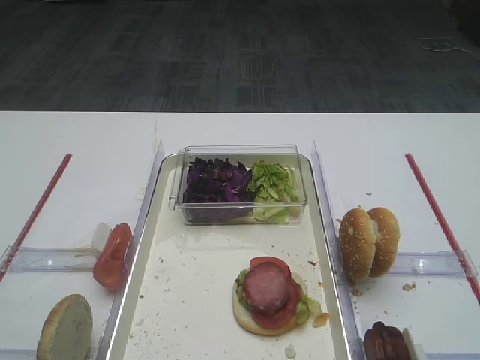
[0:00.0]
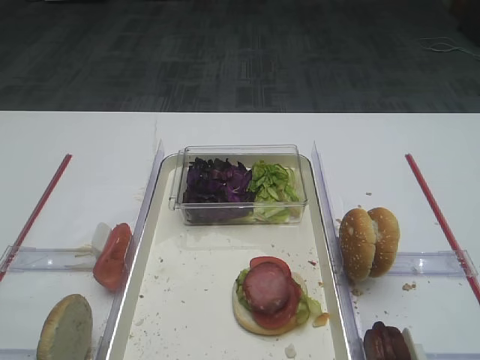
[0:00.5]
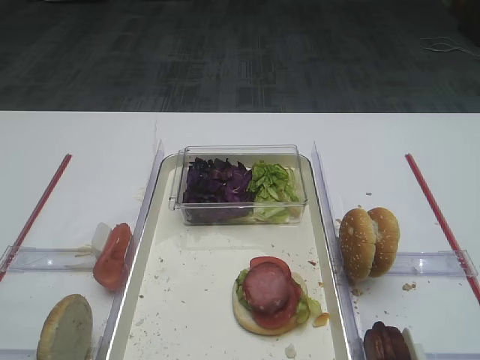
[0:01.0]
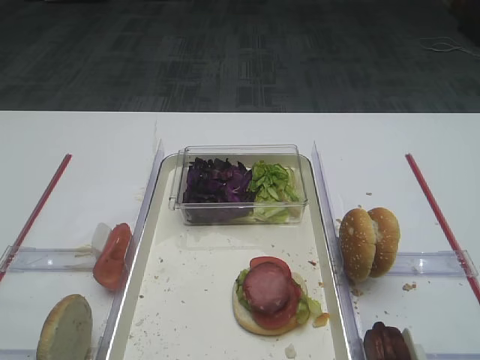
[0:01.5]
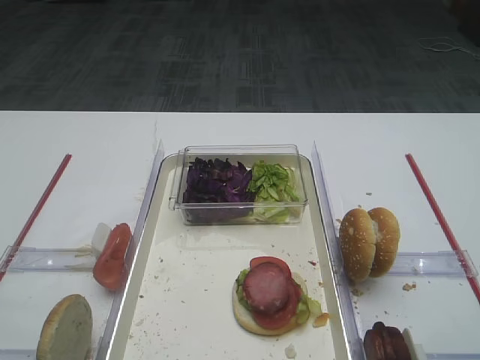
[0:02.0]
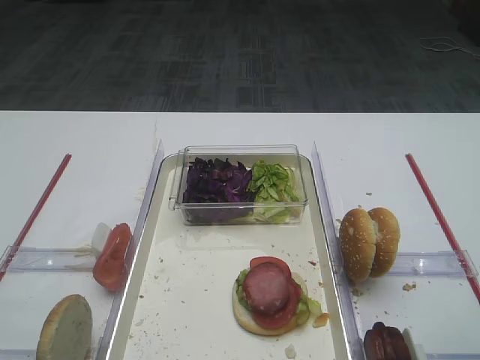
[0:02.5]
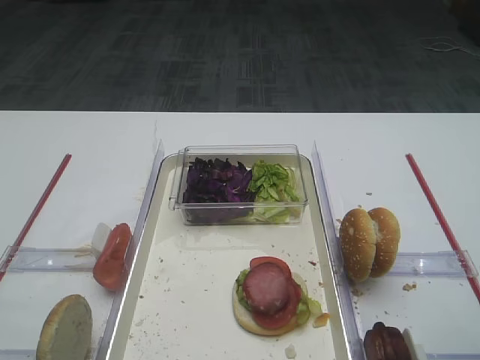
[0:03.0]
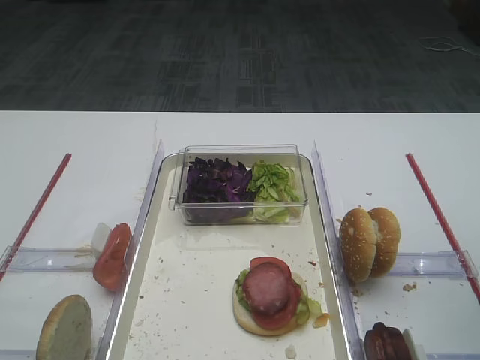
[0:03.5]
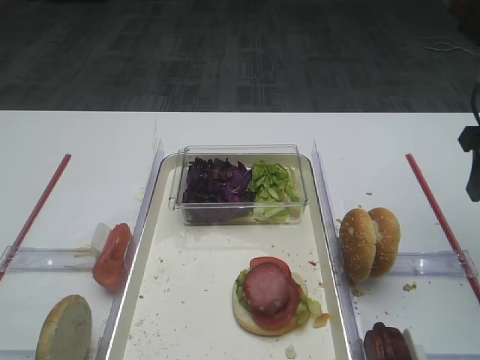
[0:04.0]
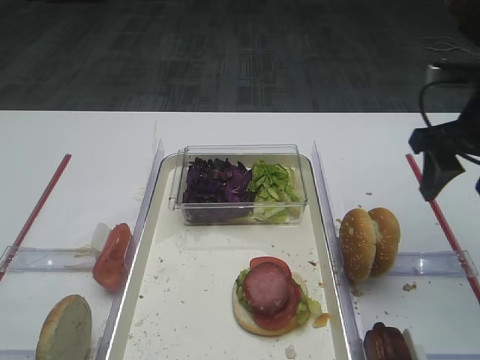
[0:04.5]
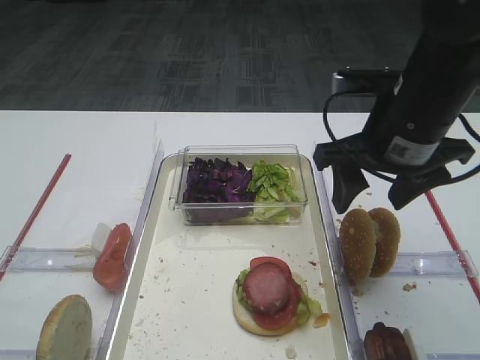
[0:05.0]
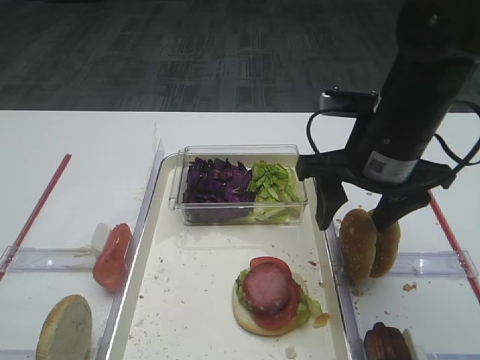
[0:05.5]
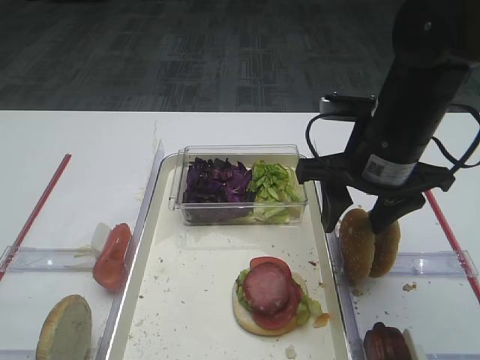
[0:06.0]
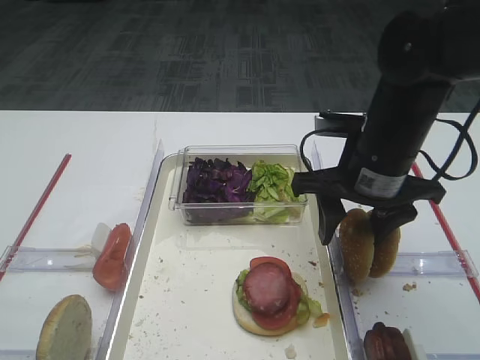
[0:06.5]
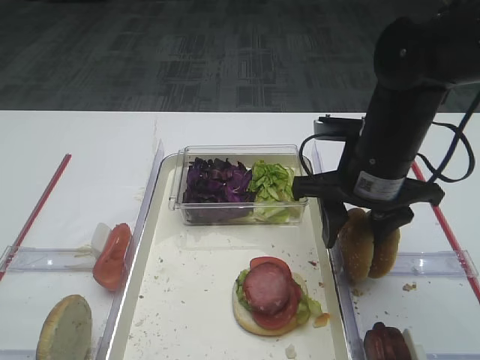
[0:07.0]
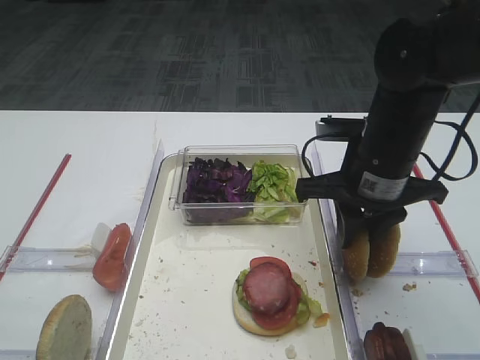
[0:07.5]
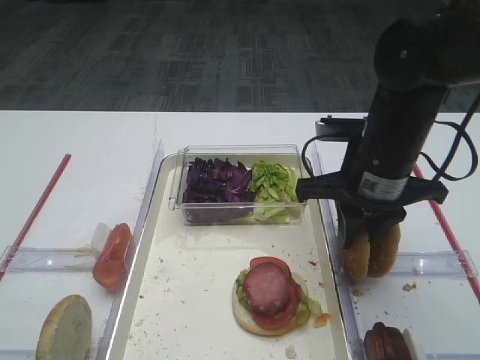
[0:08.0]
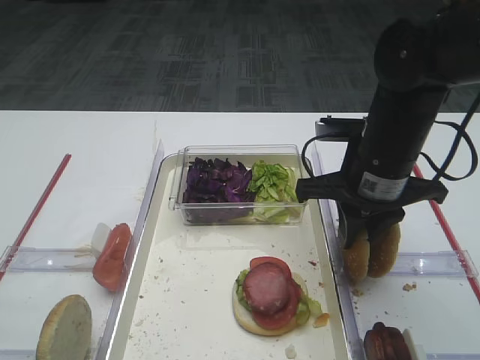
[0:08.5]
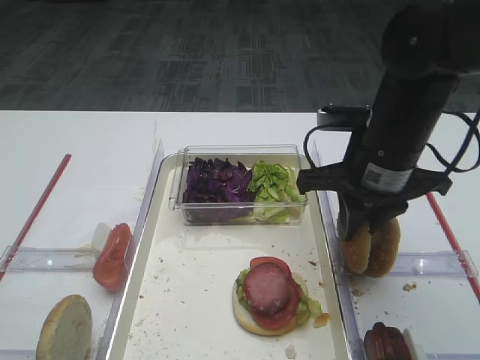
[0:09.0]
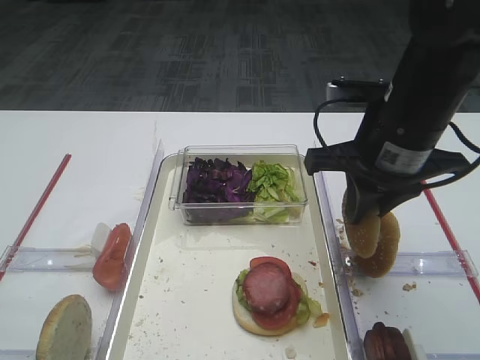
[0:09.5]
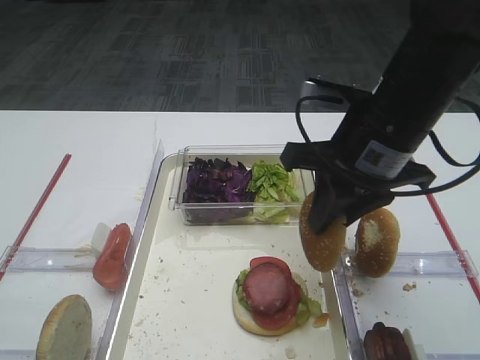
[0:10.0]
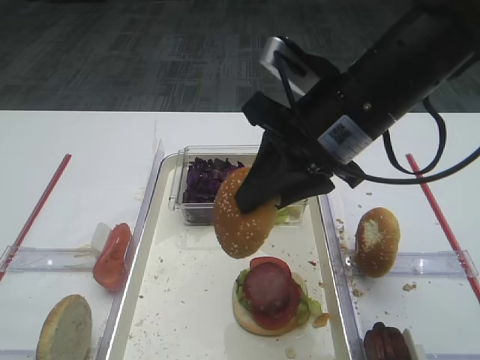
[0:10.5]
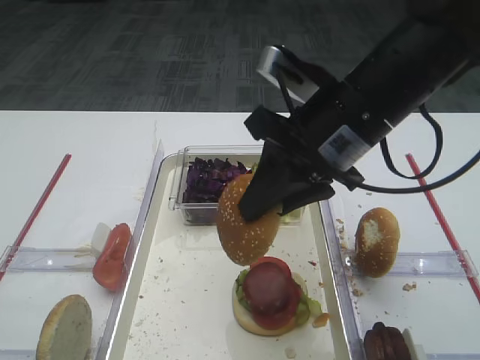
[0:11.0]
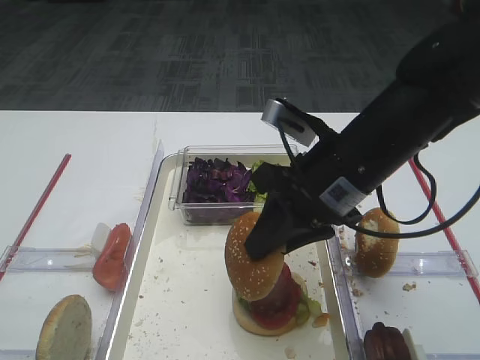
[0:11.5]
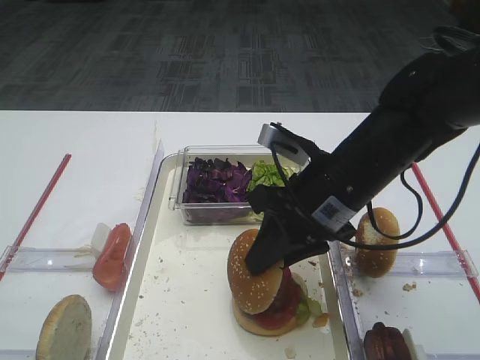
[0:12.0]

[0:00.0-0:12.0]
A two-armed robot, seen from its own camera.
Step, 0:00.0 to 0:09.5: Pick up the hamburger lid with the right gripper.
0:02.0 to 0:04.0: The right gripper goes roughly 20 cm forward.
0:04.0 to 0:06.0: The right gripper moves to the left, roughly 15 cm.
0:06.0 to 0:08.0: The right gripper closes.
0:08.0 to 0:10.0: The right gripper goes approximately 5 cm upward.
0:10.0 to 0:12.0: The right gripper shifts roughly 5 cm downward.

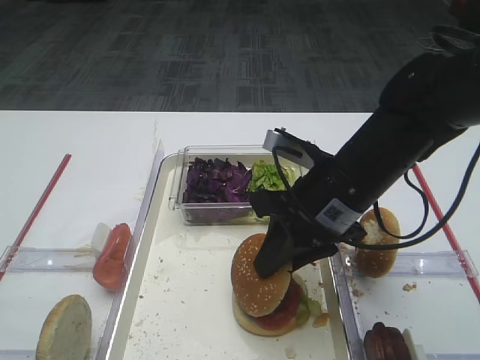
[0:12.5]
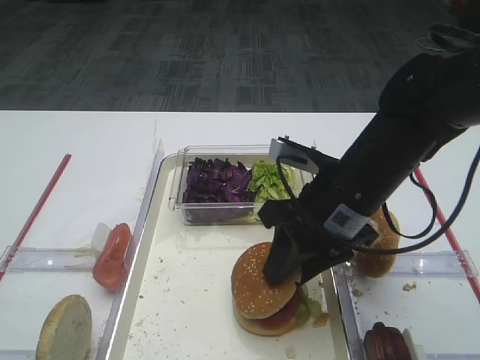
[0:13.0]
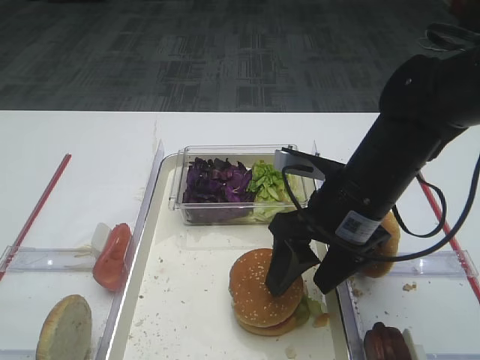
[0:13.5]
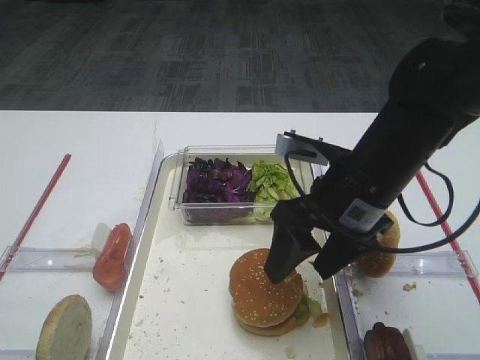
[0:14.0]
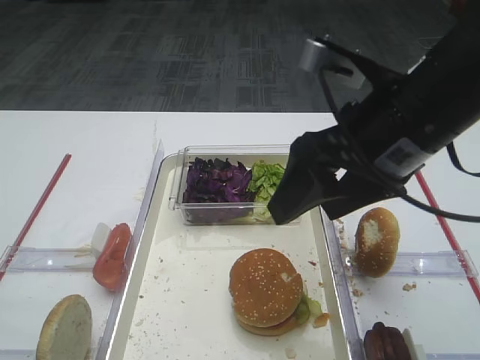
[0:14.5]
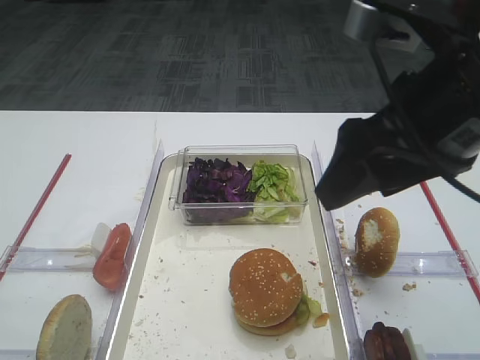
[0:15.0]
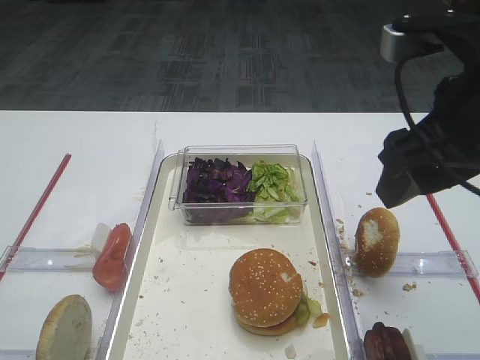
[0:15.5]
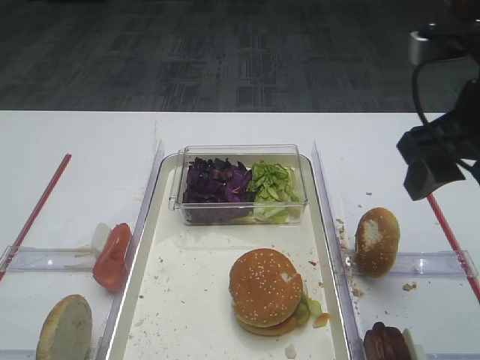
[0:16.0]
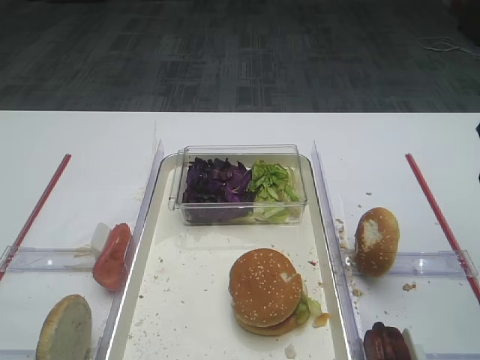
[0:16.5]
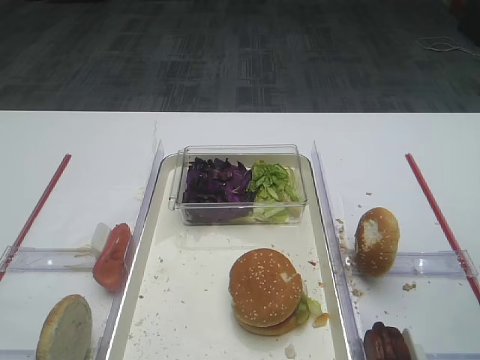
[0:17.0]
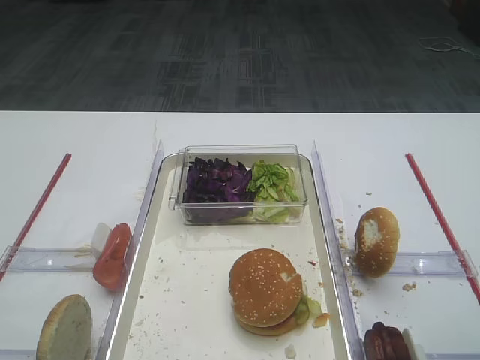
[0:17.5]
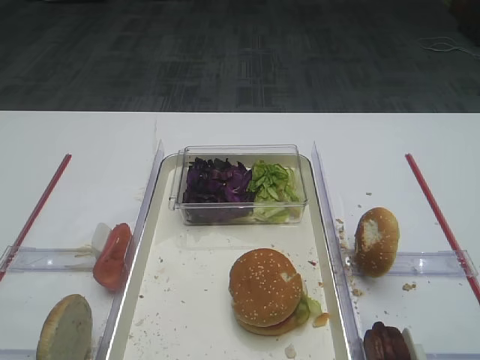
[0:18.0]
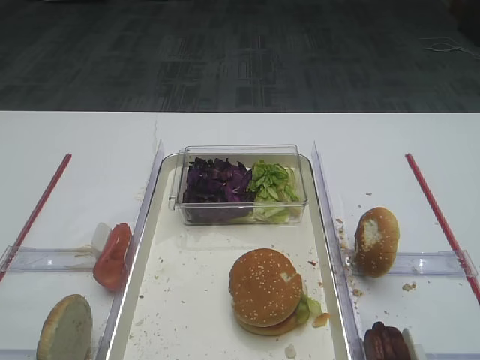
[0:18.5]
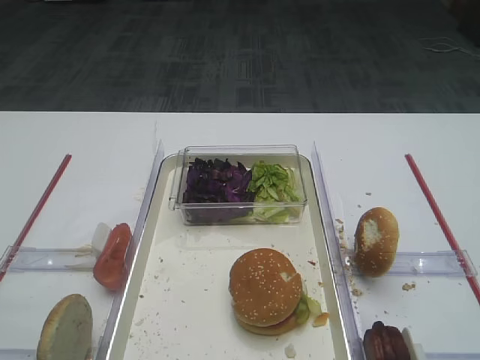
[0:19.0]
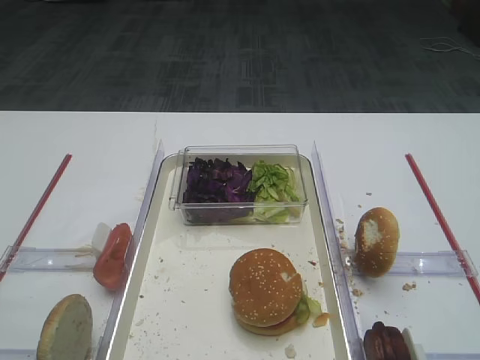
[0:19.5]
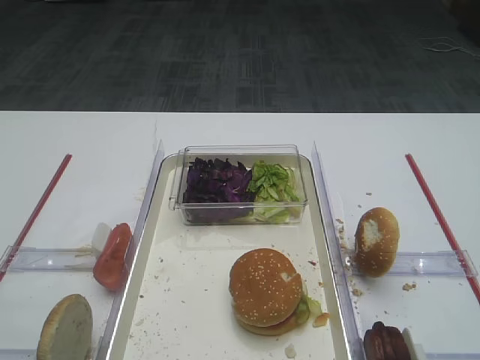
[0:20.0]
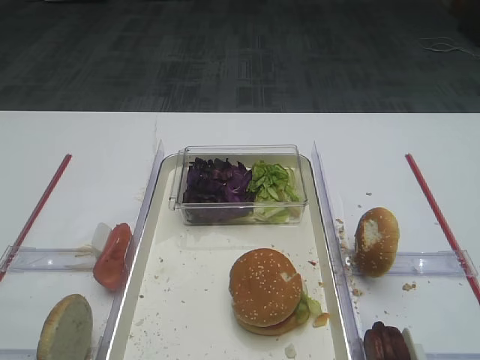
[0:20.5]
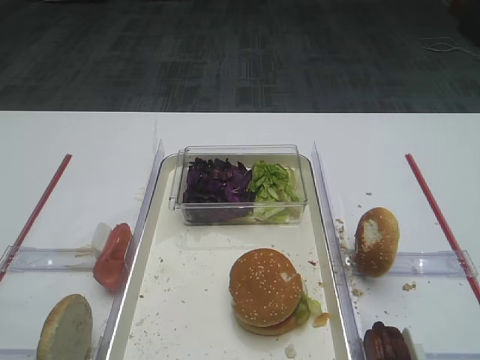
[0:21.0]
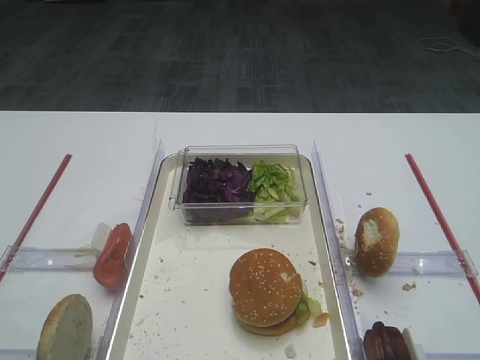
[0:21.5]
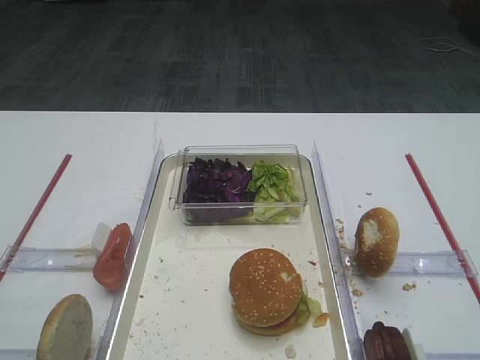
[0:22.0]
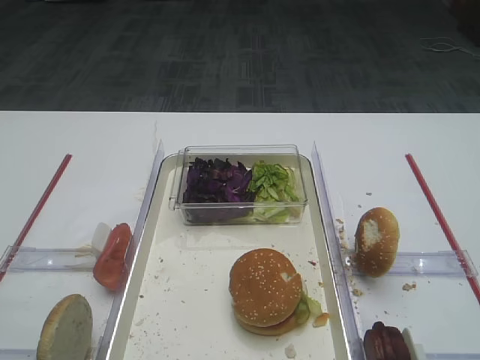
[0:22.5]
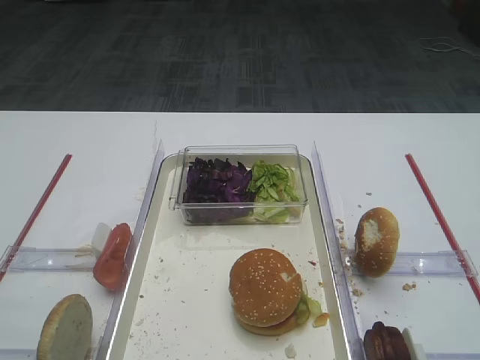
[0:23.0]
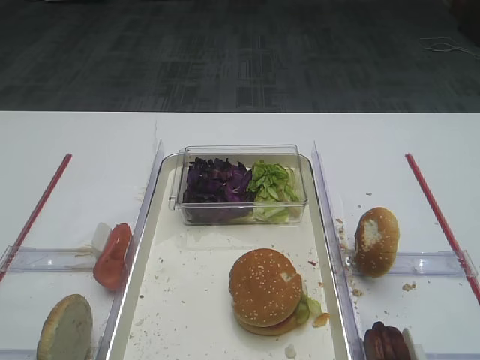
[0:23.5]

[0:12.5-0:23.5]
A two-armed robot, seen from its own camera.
0:12.5 to 0:14.5: The right gripper heads upward, covering approximately 10 cm, and opens up.
0:14.5 to 0:16.0: The right gripper moves to the right, about 5 cm.
0:16.0 to 0:18.0: The right gripper shifts approximately 15 cm backward and to the right.
0:20.0 to 0:23.5: Both grippers stay put.

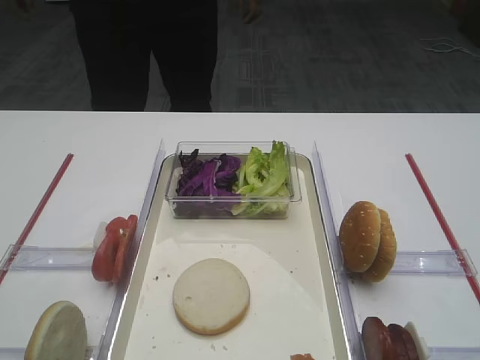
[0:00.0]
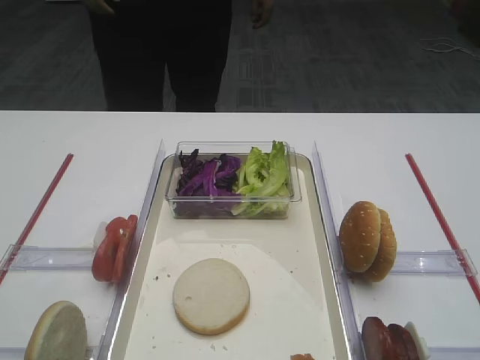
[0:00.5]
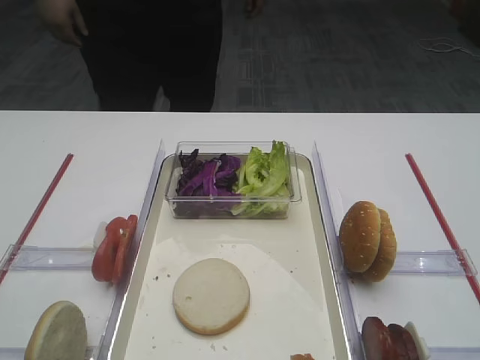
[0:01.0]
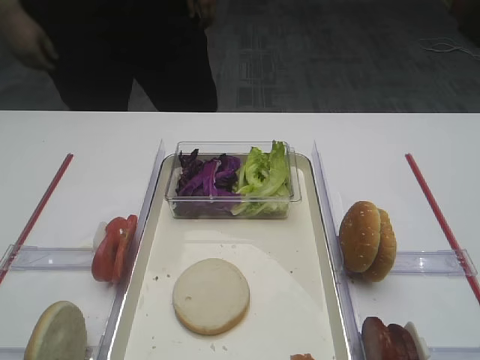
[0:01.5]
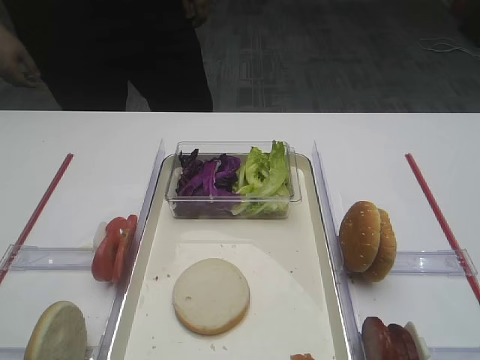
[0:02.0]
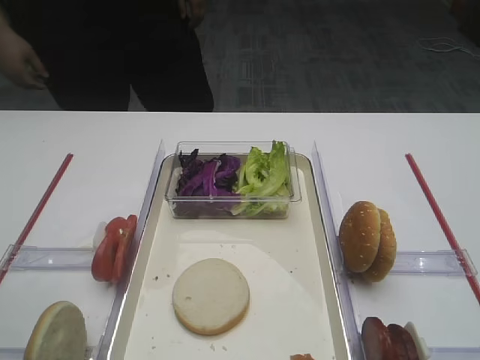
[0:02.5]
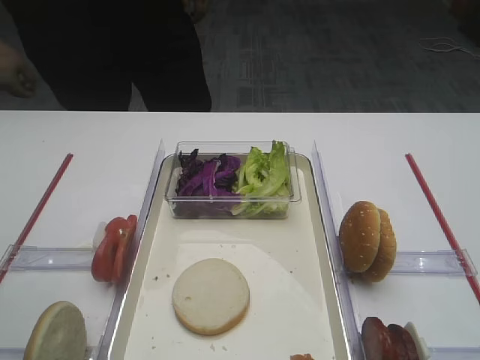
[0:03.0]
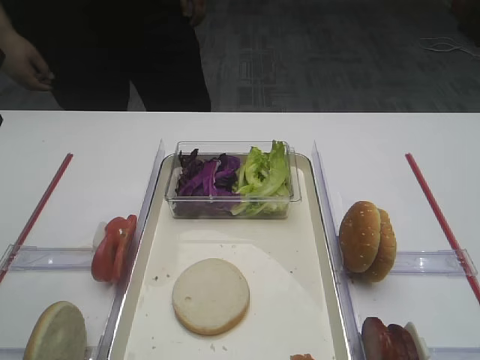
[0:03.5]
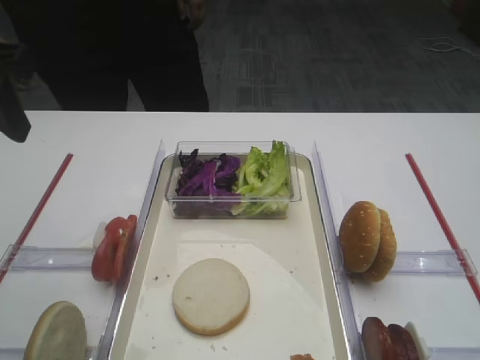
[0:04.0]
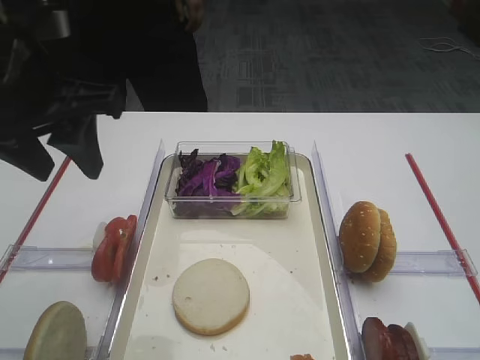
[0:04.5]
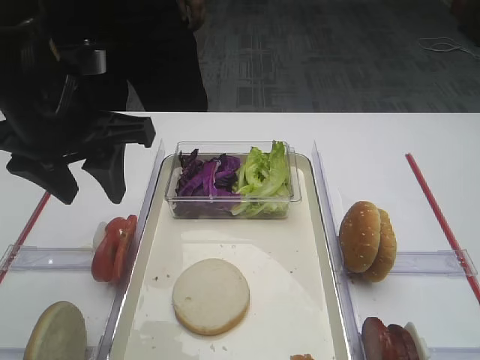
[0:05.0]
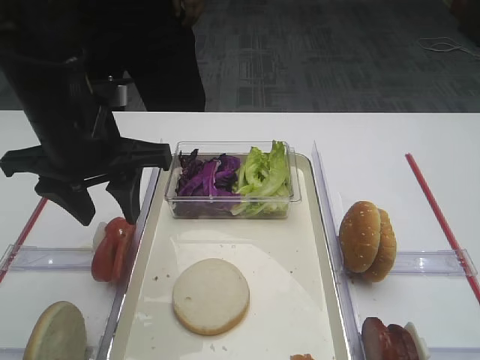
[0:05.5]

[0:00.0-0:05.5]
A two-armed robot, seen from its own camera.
0:03.5 to 0:05.5: The left gripper is displaced to the right and downward by approximately 15 cm.
